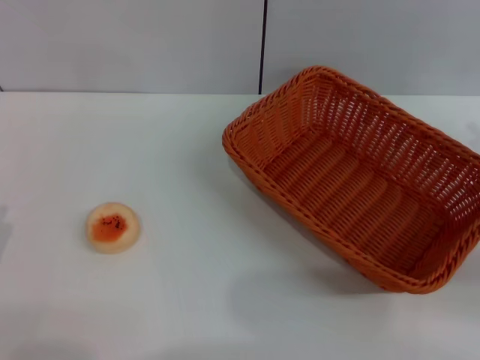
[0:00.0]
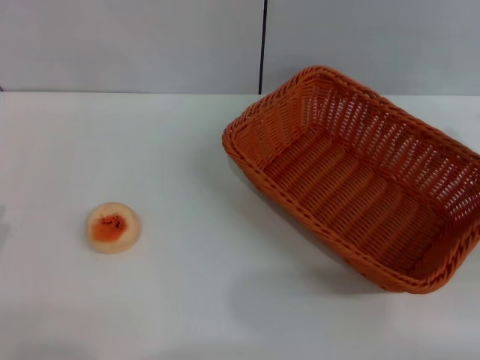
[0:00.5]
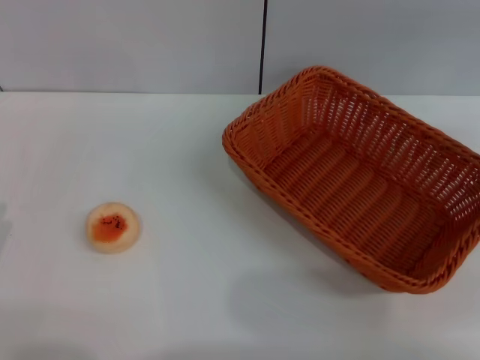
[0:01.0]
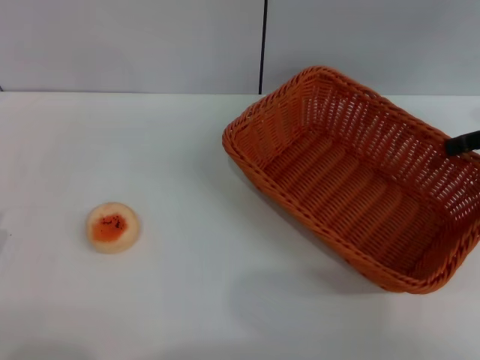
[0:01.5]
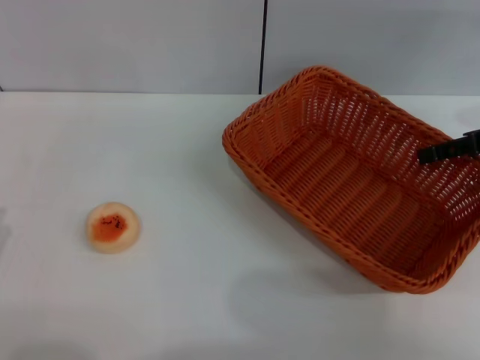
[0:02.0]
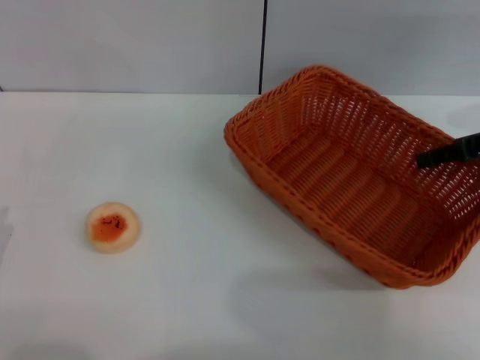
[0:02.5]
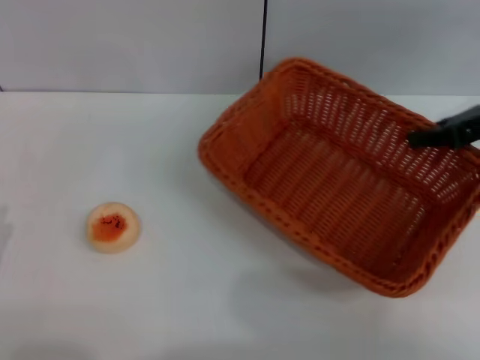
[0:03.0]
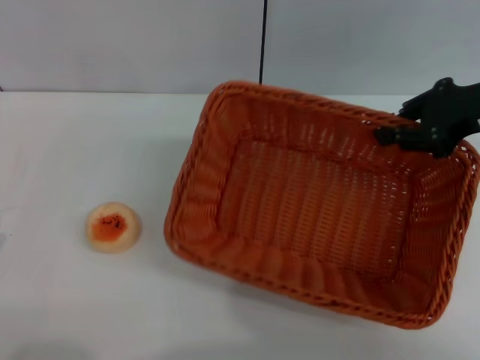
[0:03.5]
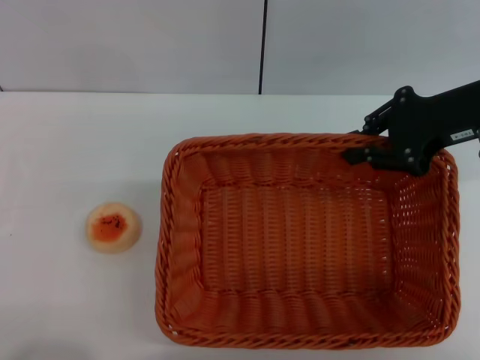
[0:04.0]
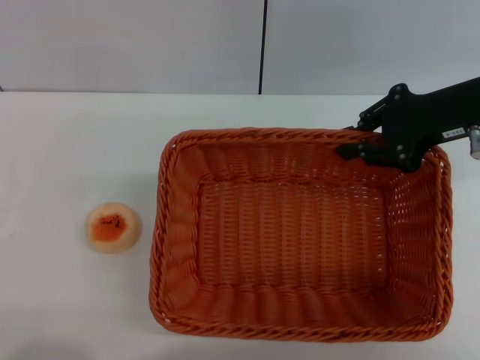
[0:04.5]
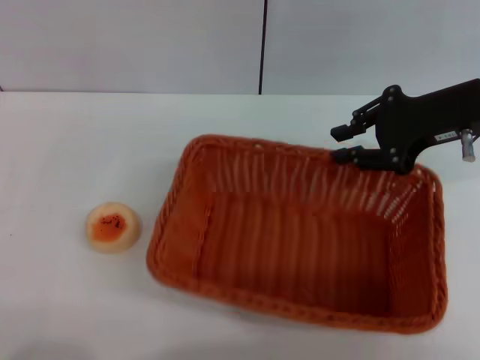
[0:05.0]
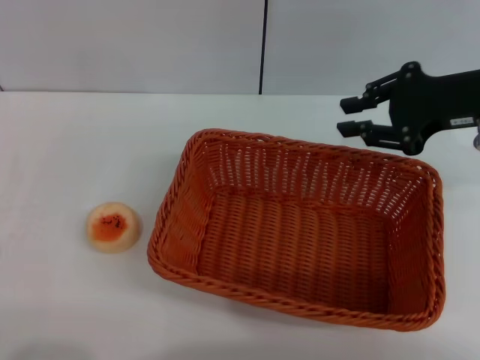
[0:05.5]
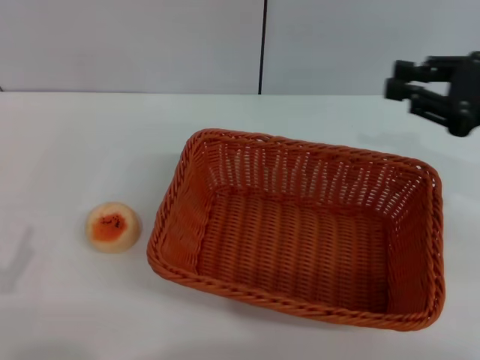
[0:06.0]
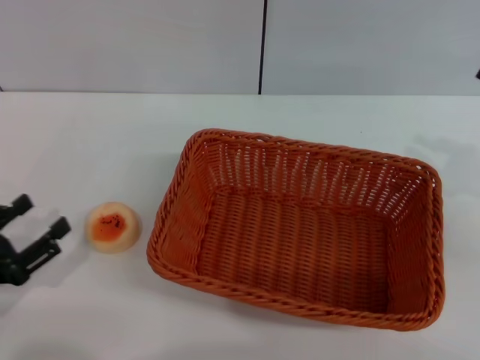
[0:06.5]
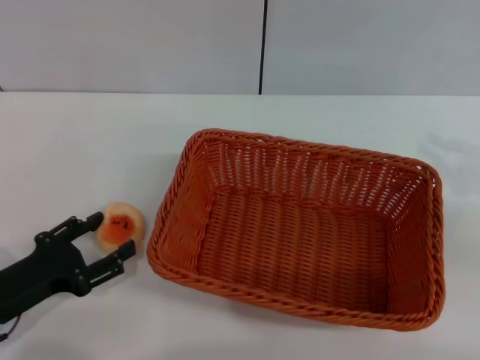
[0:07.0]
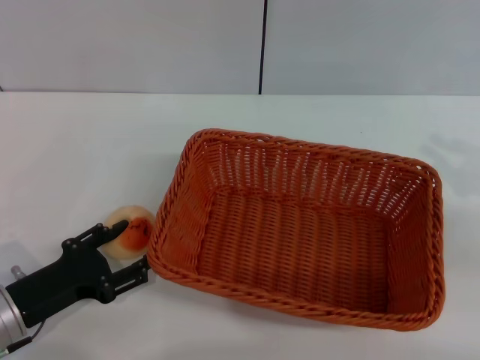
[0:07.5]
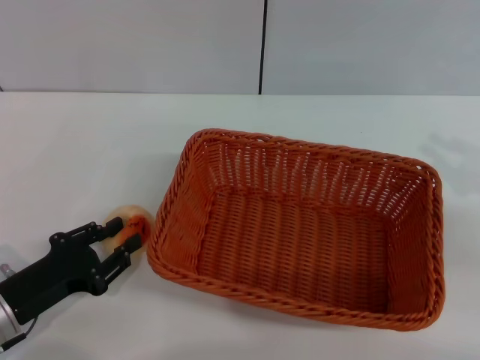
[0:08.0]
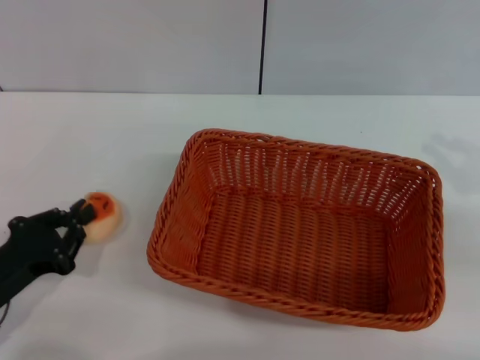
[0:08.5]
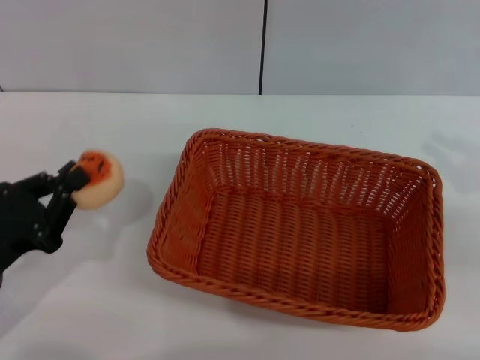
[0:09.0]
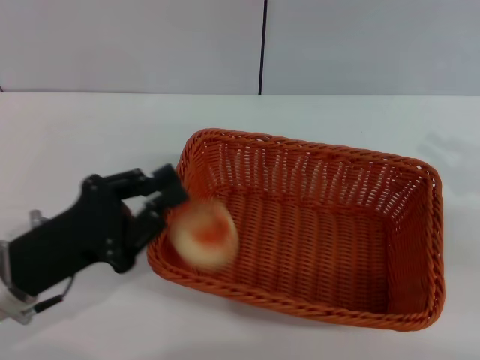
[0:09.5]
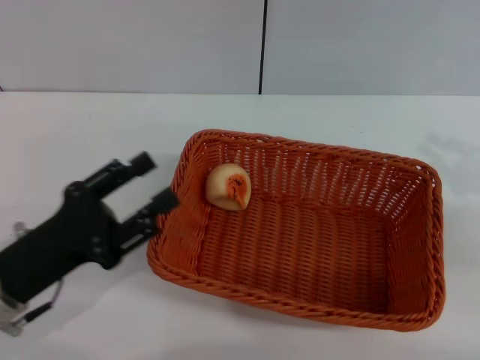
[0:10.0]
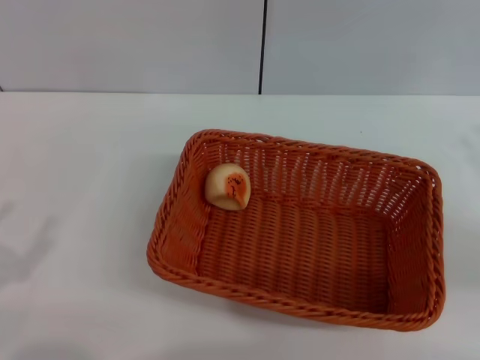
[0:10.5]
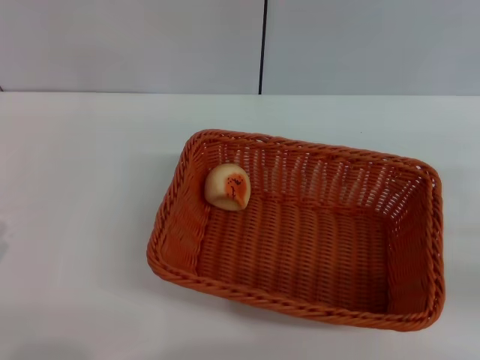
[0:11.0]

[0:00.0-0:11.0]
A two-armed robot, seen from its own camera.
Step, 0:00.0 to 0:05.5: Move the basket to the center of view with the right gripper.
Step, 0:06.5 to 0:08.5: Pick up the egg yolk pastry with the left gripper.
Step, 0:09.0 to 0:09.5: Place the egg yolk pastry into the basket with the left gripper.
0:00.0 to 0:02.0: The right gripper moves forward and upward, about 15 cm.
0:02.0 to 0:03.5: The right gripper goes some 5 cm to the left, and closes.
0:03.5 to 0:05.5: The grippers stay close to where they were, moving slightly.
0:05.5 to 0:07.5: The right gripper shifts roughly 15 cm to the right and backward. Meanwhile the left gripper moves forward and to the right, approximately 10 cm.
0:07.5 to 0:09.0: The left gripper moves about 5 cm, and closes.
0:09.0 to 0:11.0: The right gripper changes place by roughly 5 cm, and opens its fingers. Meanwhile the left gripper shifts about 10 cm backward and to the left, and opens its fingers.
